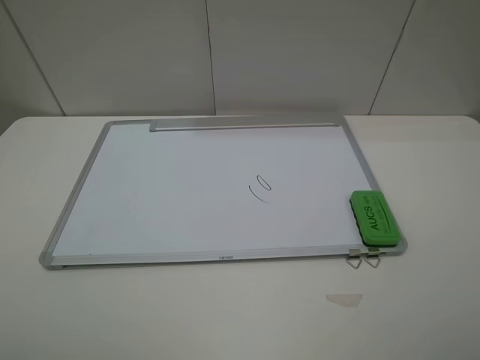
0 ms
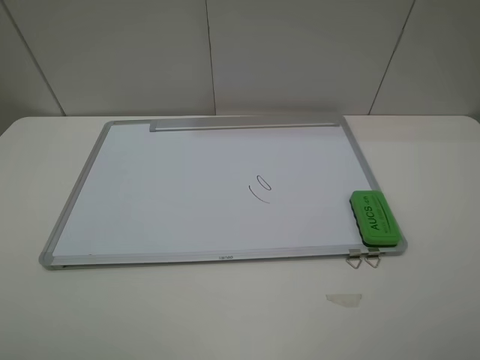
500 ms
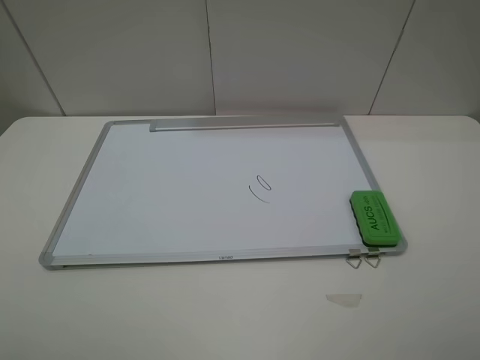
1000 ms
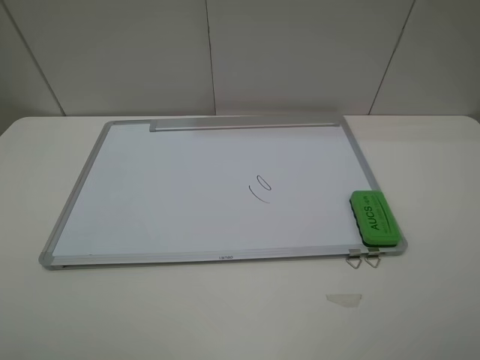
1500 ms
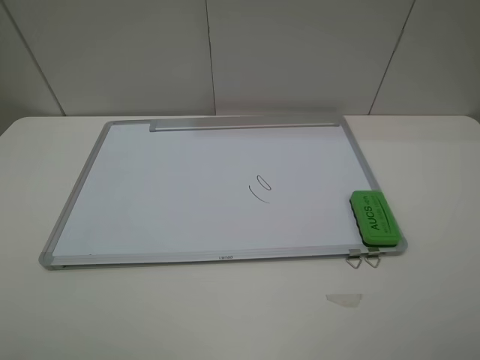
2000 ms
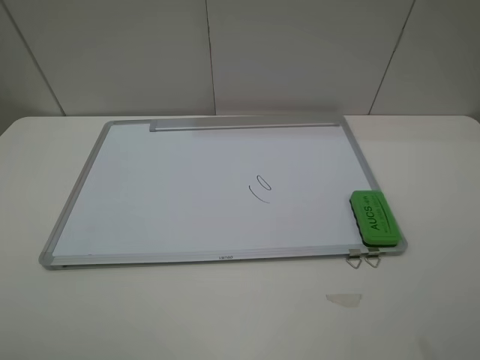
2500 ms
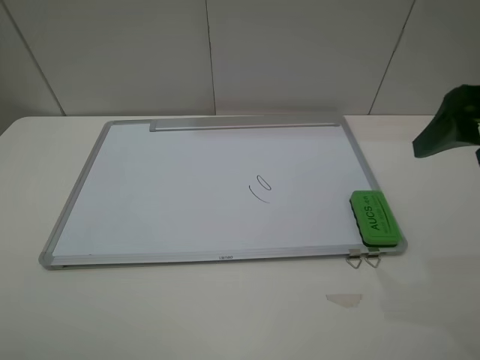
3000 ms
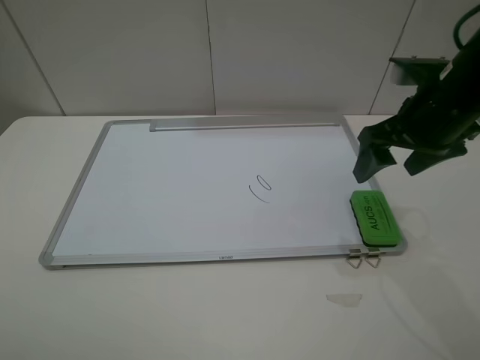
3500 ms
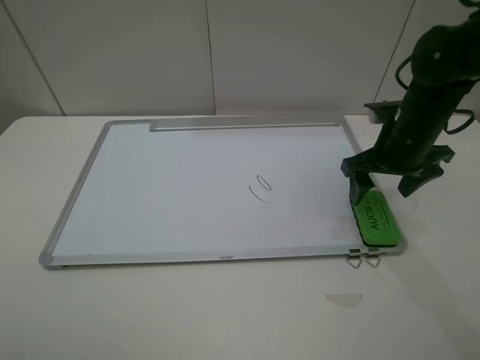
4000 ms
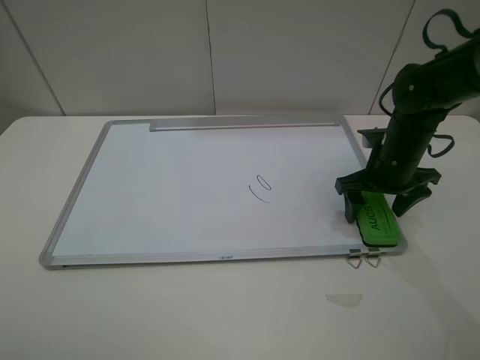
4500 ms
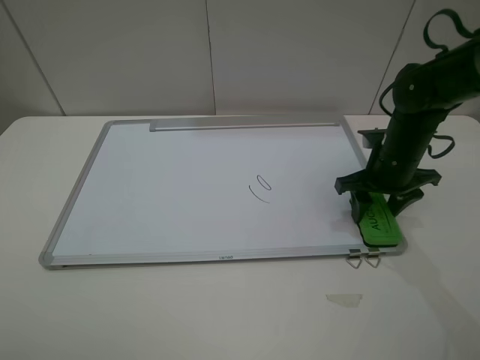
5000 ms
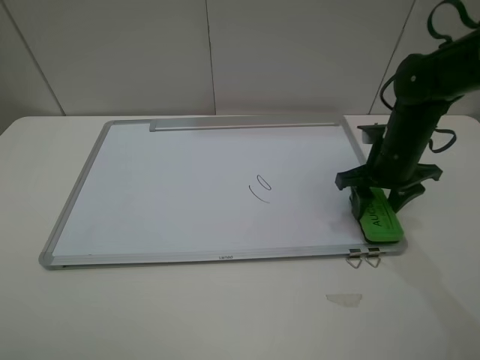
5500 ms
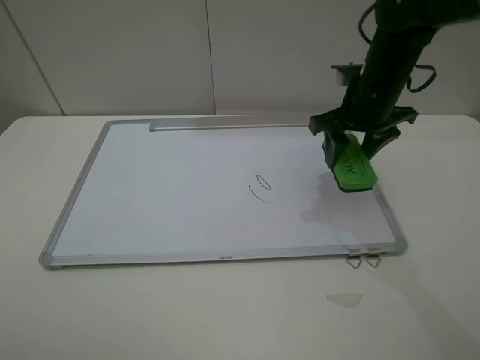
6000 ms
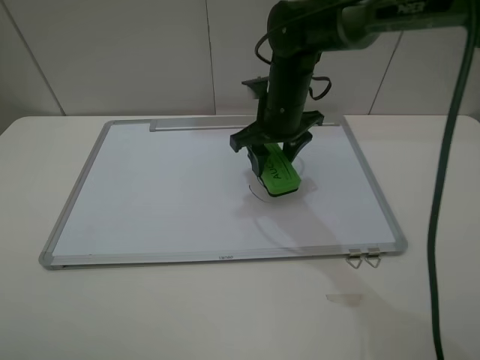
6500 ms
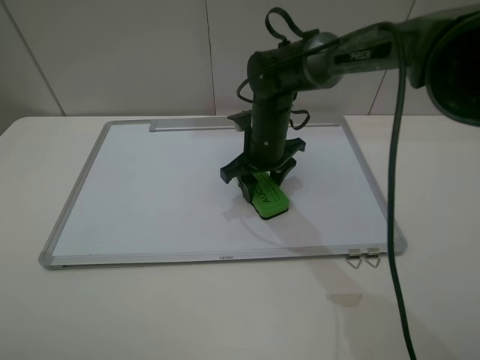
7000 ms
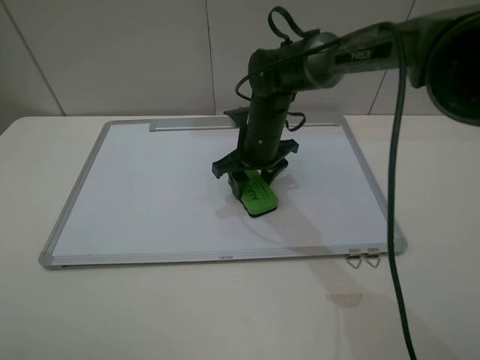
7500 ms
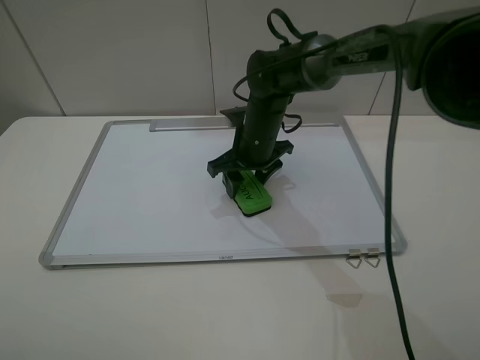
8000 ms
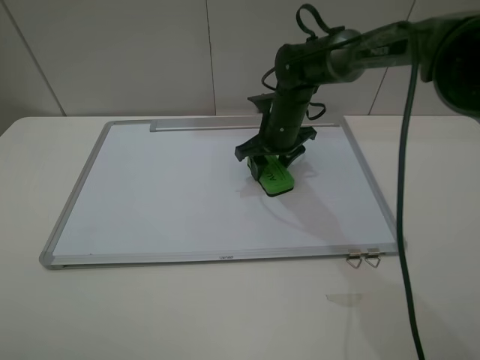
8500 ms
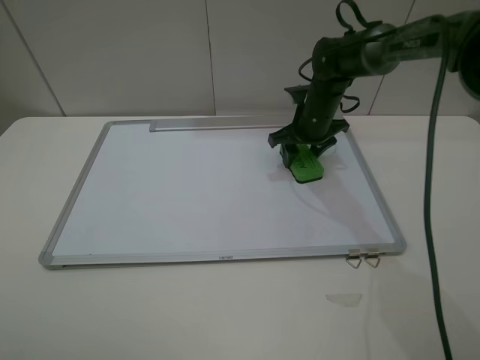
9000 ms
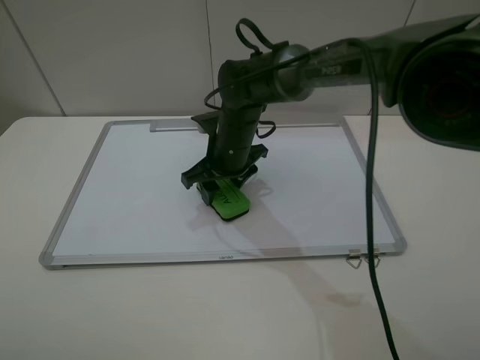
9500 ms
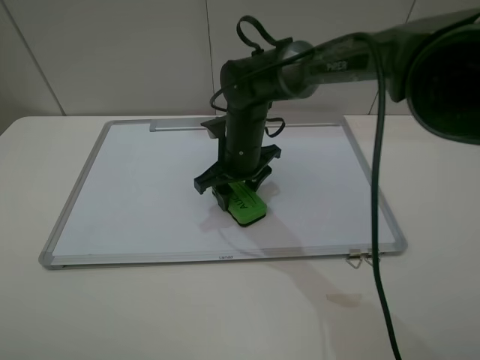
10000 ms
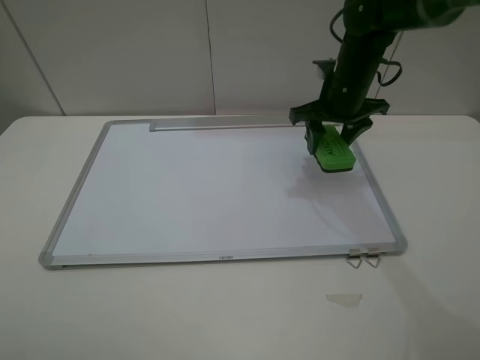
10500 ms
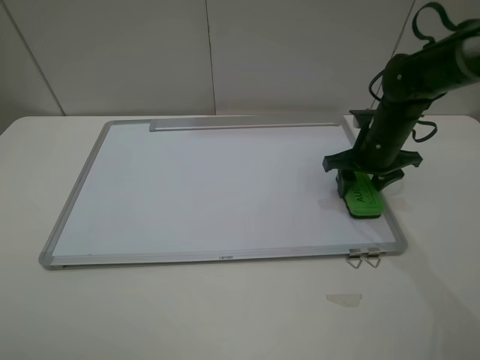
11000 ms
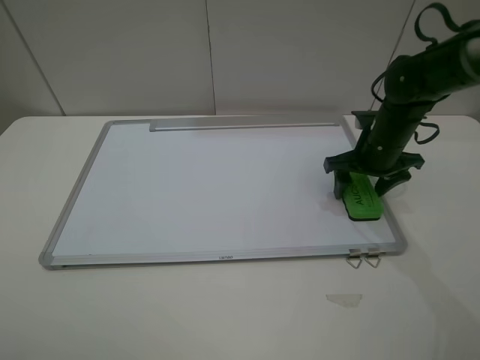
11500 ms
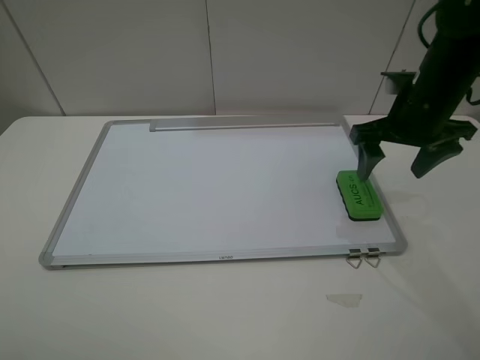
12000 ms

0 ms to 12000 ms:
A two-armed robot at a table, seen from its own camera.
Step, 0 ms to 5000 ms: Grasp the eraser with the right gripper.
Step, 5500 ms to 9500 ms: Grasp the eraser and wipe the blackboard with the right gripper.
Step, 10000 ms to 11500 ms: Place the eraser with the right gripper.
0 ms to 2000 ms: Both grippers stay about where they are.
2000 ms to 4000 ms: The right gripper moves forward and downward, approximately 35 cm.
4000 ms to 6000 ms: The right gripper travels to the left and upward by approximately 10 cm, and closes up.
6000 ms to 8000 ms: The right gripper is displaced to the left and downward by some 15 cm.
8000 ms to 10000 ms: The right gripper travels to the right and back again, roughly 10 cm each way.
10000 ms to 12000 ms: The right gripper moves to the right and upward, some 25 cm, and opens.

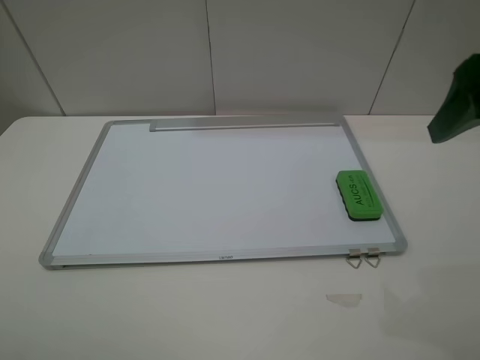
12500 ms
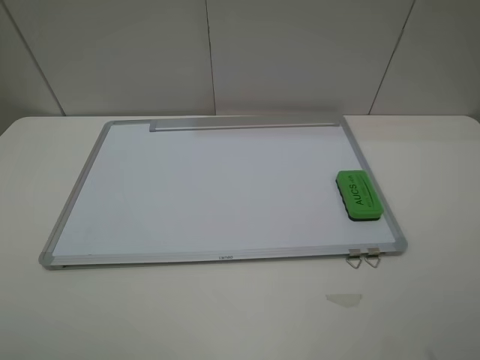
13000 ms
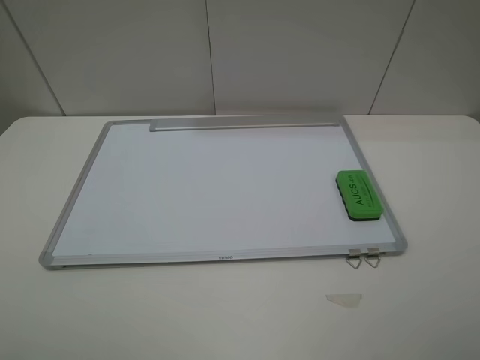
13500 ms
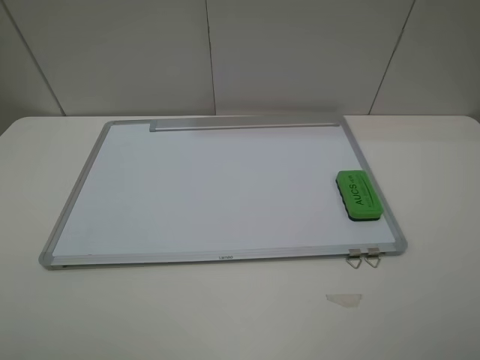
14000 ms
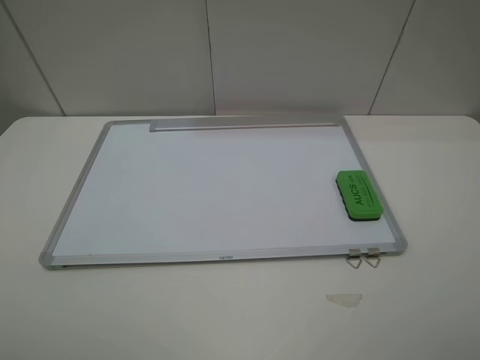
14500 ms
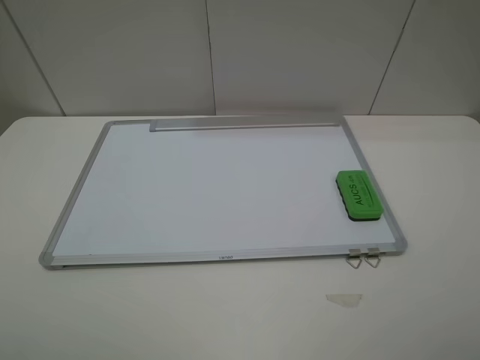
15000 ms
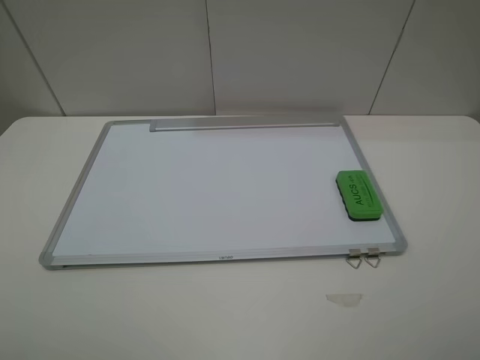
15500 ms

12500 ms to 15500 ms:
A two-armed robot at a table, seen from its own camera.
12500 ms to 14000 ms: The right gripper moves backward, approximately 20 cm.
